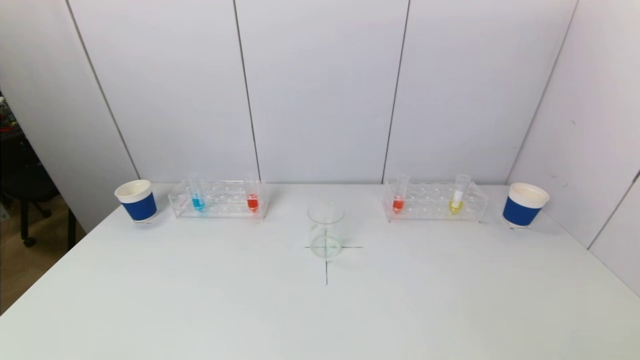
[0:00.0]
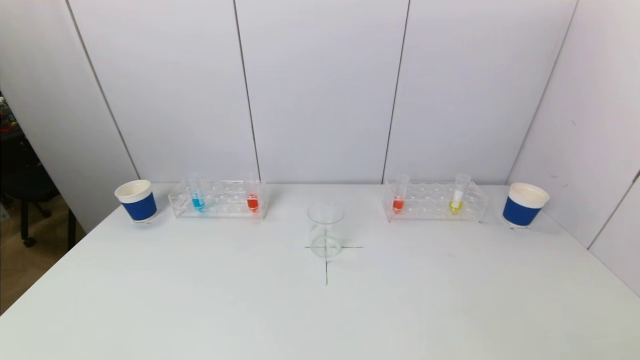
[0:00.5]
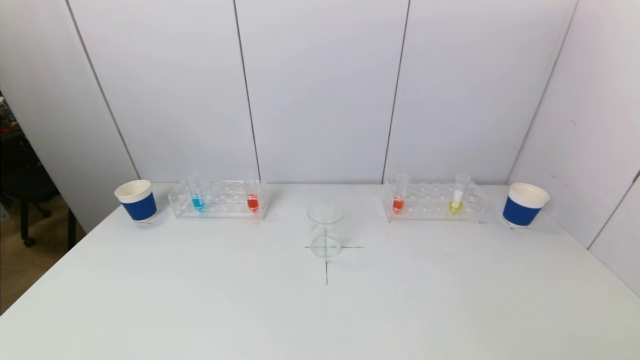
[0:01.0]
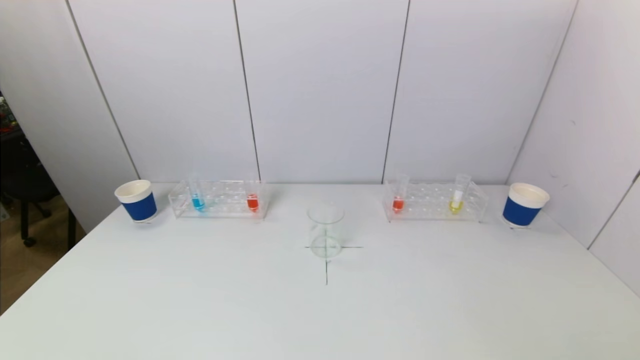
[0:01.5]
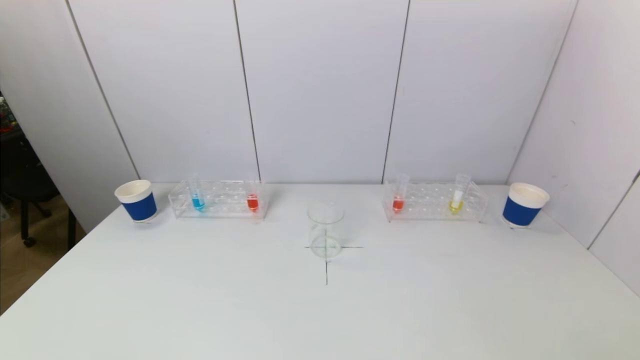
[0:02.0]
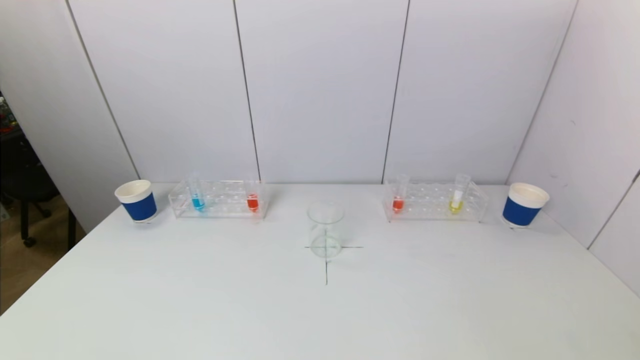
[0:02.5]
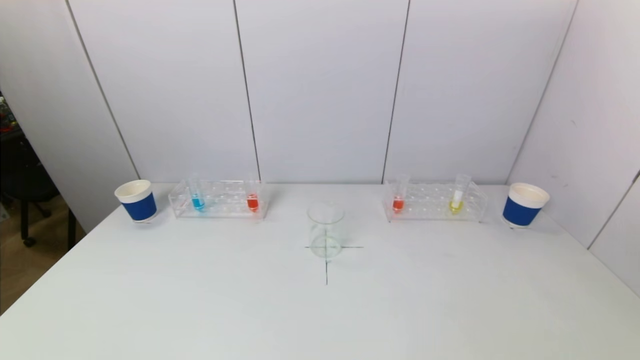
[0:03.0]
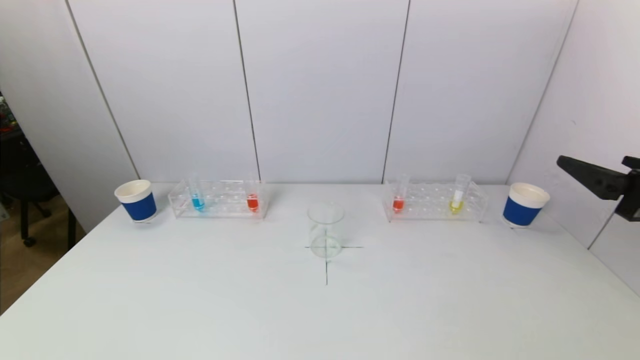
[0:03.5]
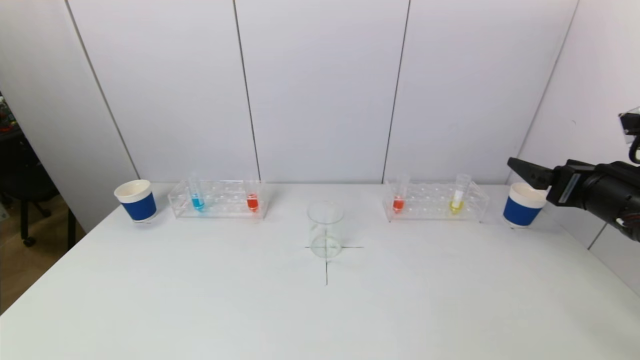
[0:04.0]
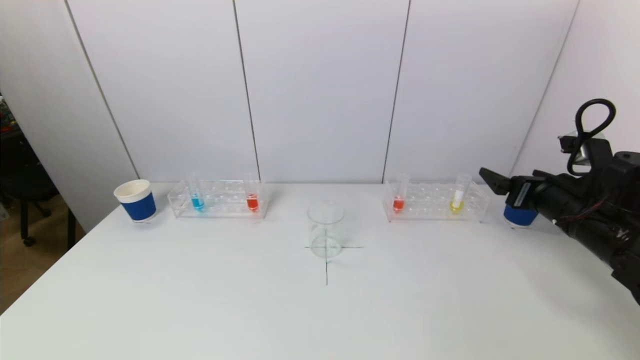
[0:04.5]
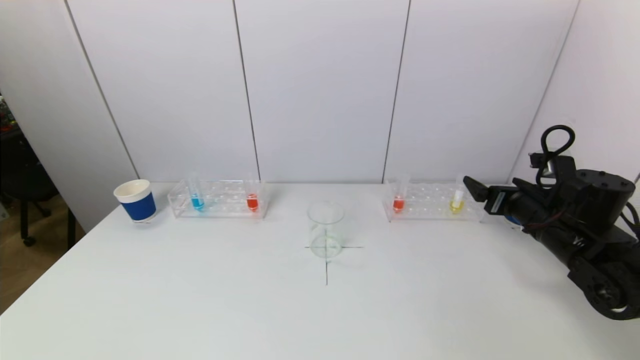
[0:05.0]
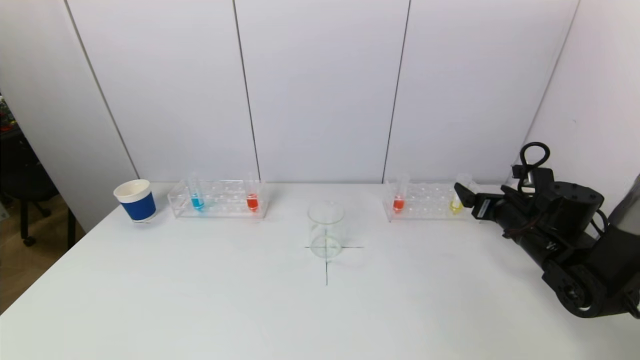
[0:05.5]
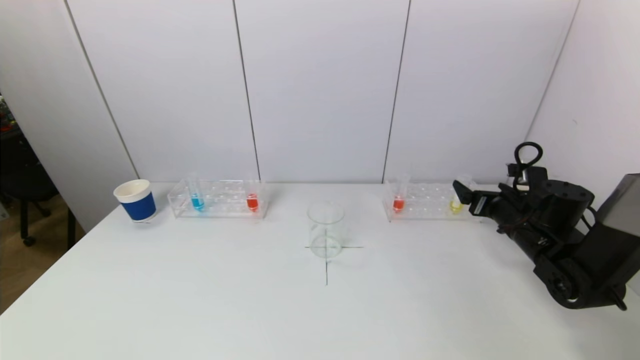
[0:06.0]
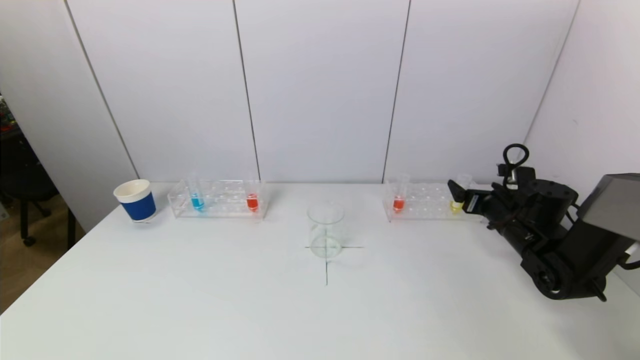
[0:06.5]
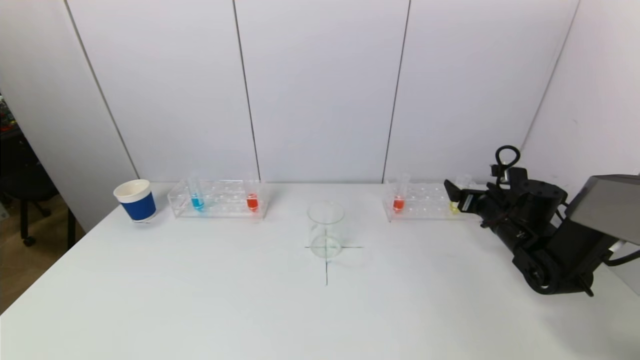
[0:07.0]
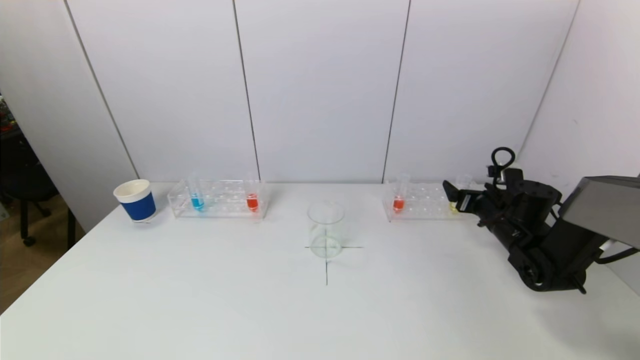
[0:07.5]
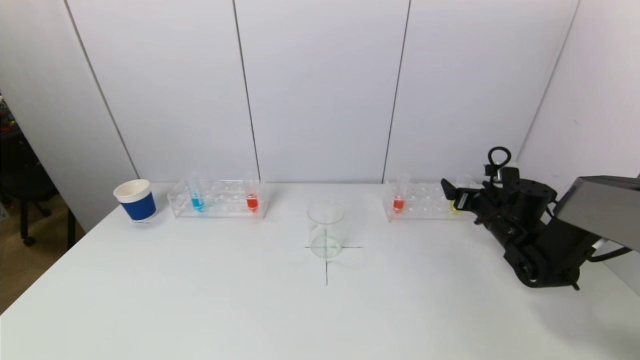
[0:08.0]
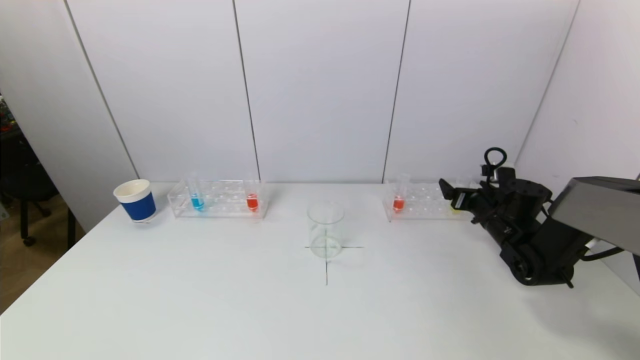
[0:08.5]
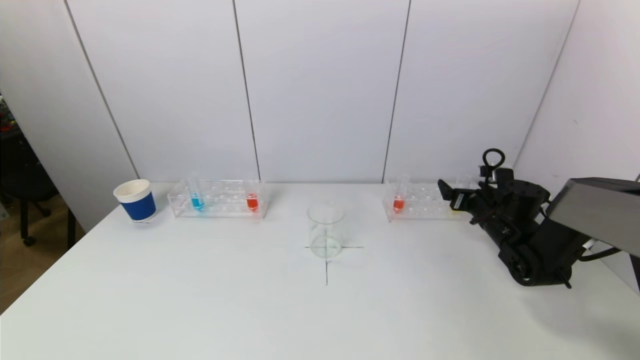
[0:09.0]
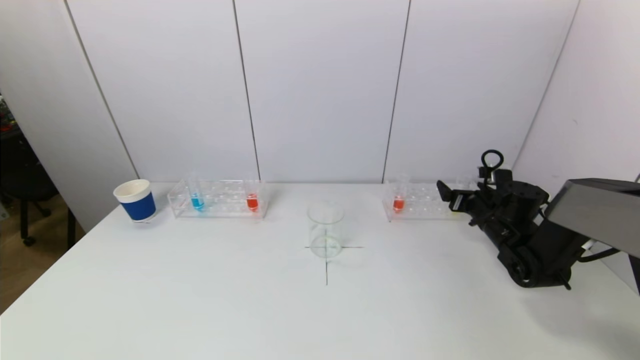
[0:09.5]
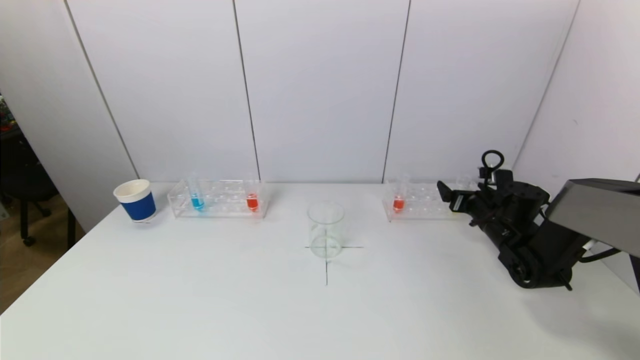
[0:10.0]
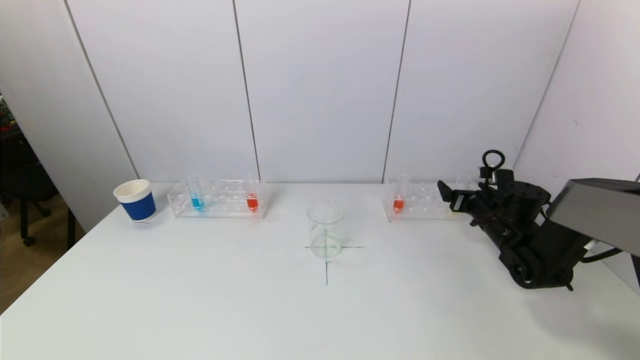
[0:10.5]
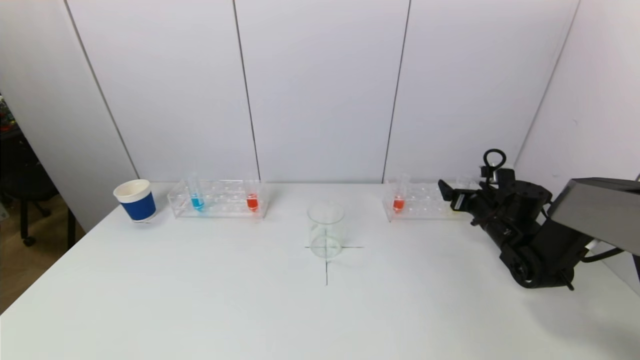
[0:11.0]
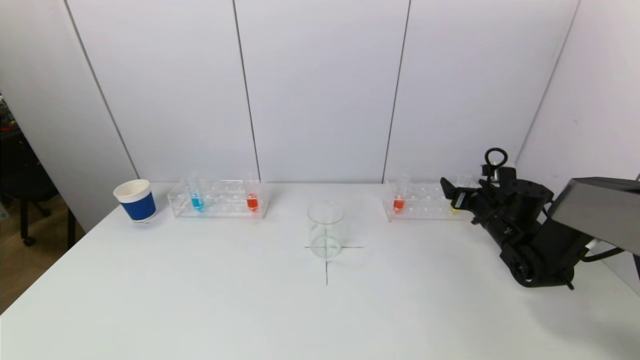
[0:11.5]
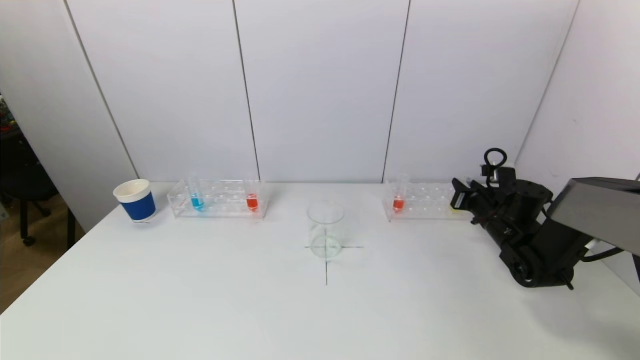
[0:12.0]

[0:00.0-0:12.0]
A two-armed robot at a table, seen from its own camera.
Task of the whole recording: pick up a test tube with pigment on left test tube rack and a test tube with pigment on right test tube rack by grippers and pour them into the beaker.
0:02.0 to 0:04.0: The right gripper is displaced forward by approximately 25 cm.
0:04.0 to 0:06.0: The right gripper goes about 15 cm downward and forward.
0:06.0 to 0:08.0: The right gripper moves forward, approximately 5 cm.
0:08.0 to 0:10.0: The two grippers keep their place.
0:10.0 to 0:12.0: The right gripper closes.

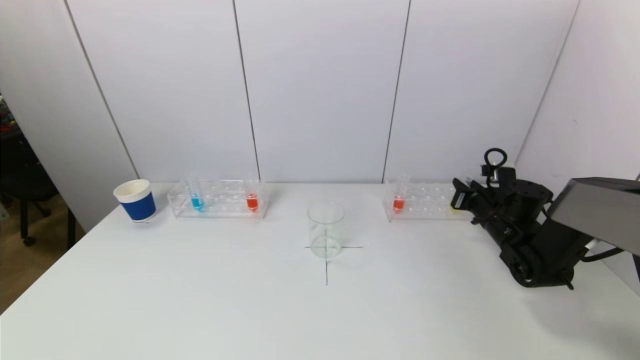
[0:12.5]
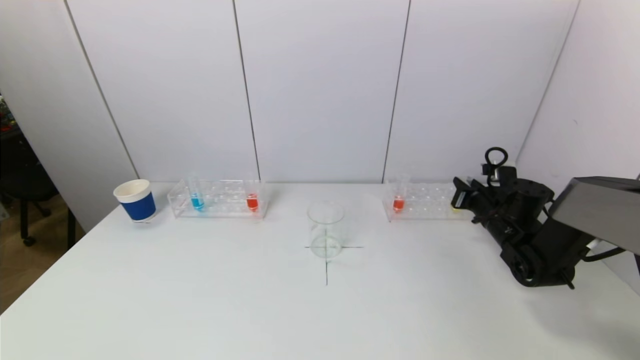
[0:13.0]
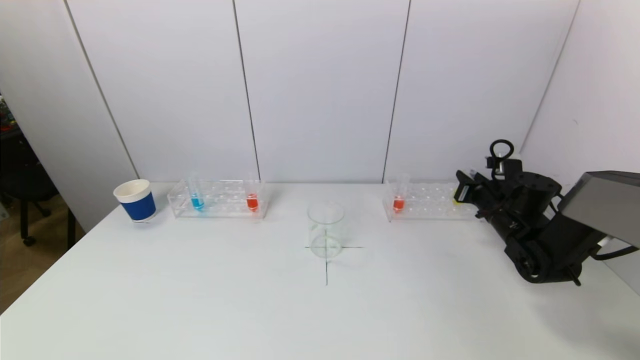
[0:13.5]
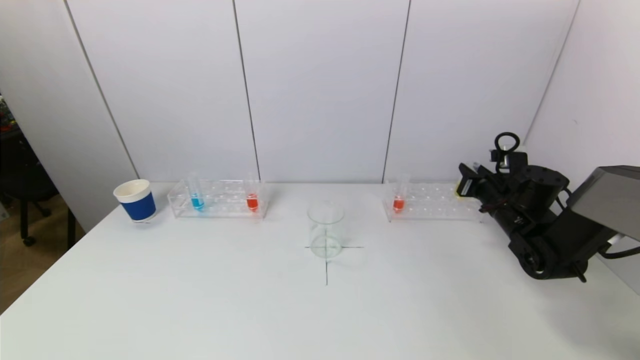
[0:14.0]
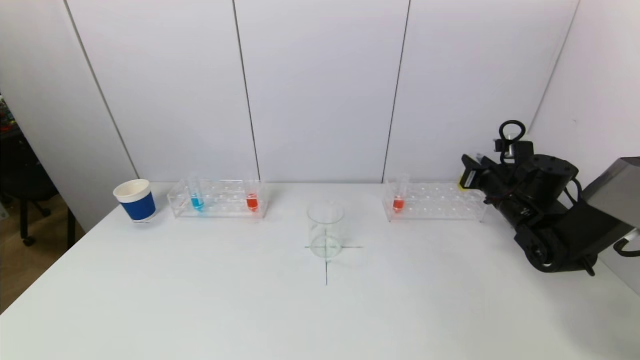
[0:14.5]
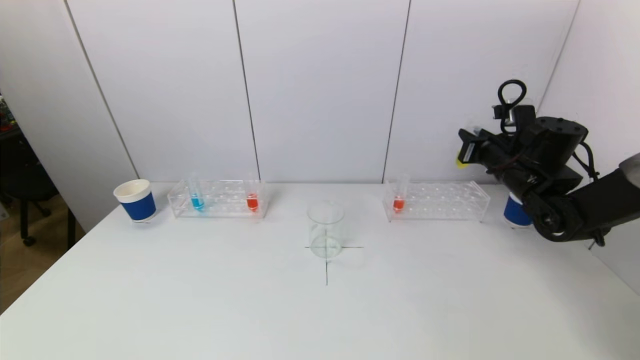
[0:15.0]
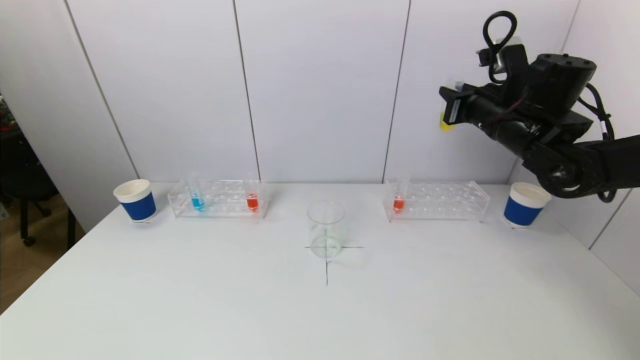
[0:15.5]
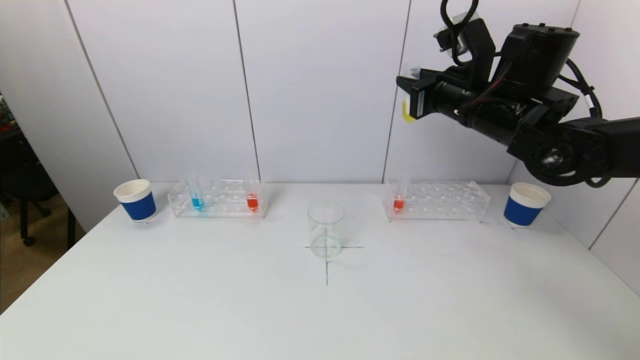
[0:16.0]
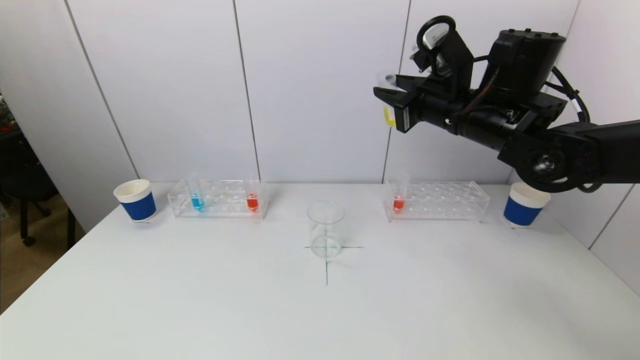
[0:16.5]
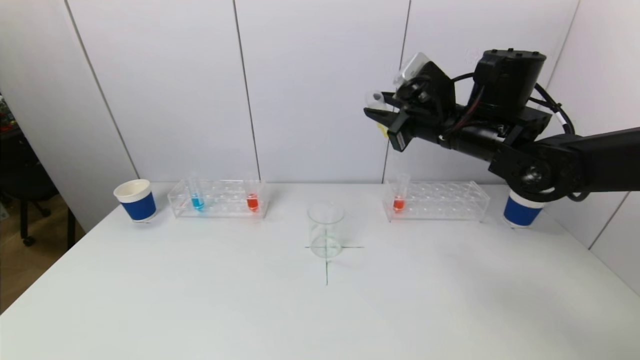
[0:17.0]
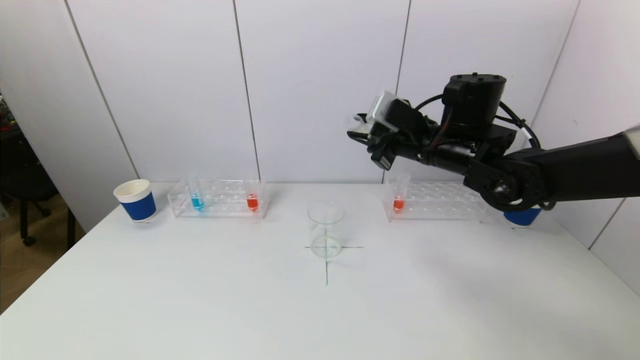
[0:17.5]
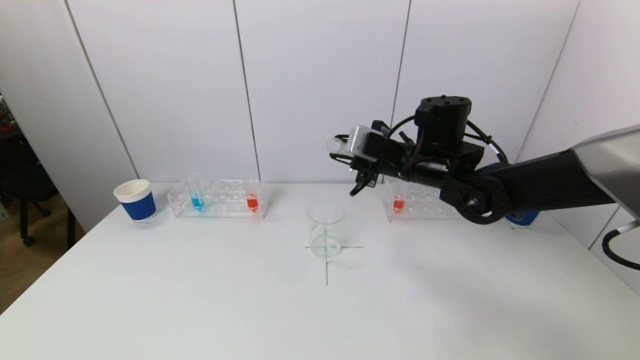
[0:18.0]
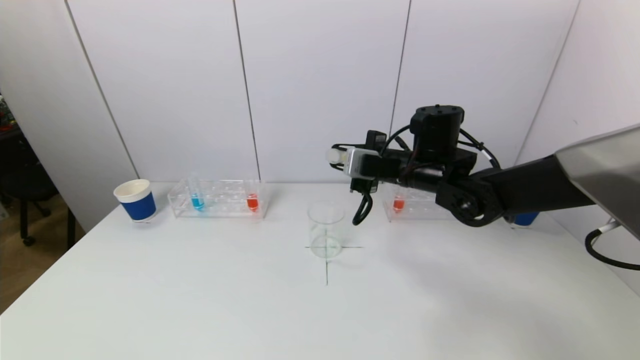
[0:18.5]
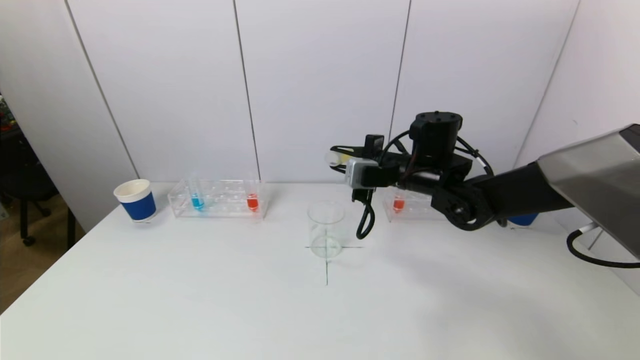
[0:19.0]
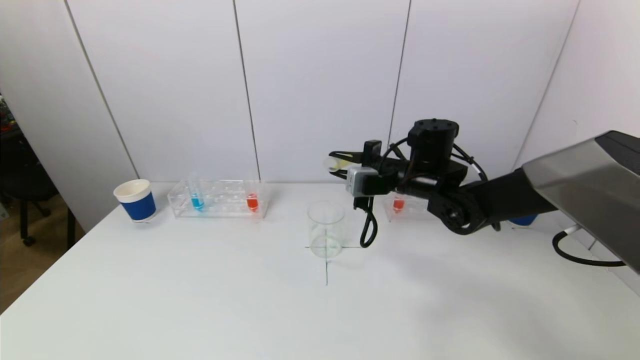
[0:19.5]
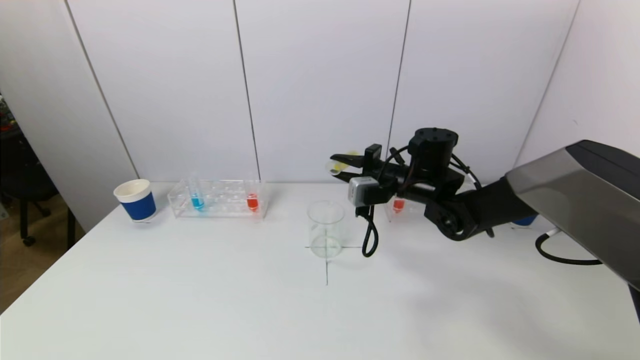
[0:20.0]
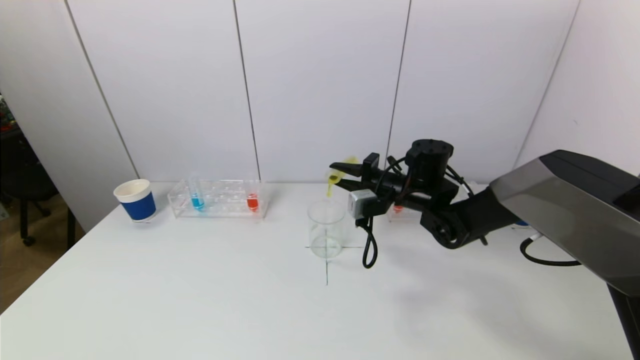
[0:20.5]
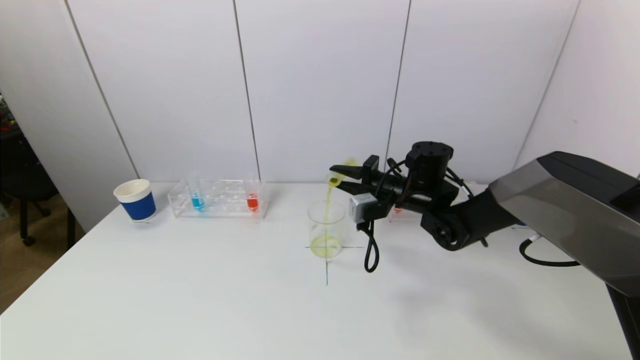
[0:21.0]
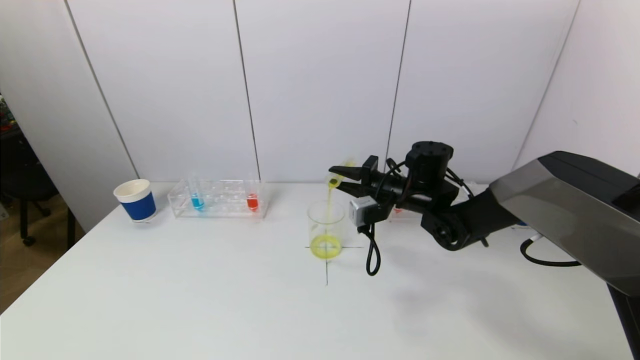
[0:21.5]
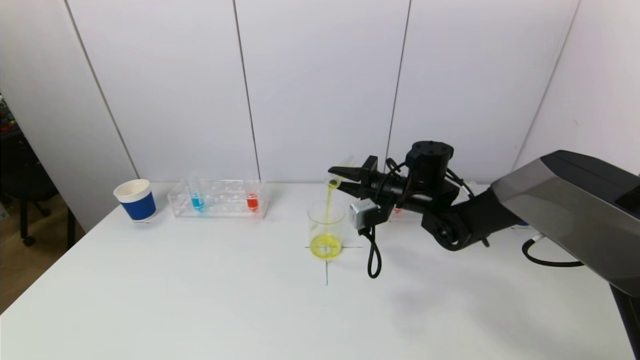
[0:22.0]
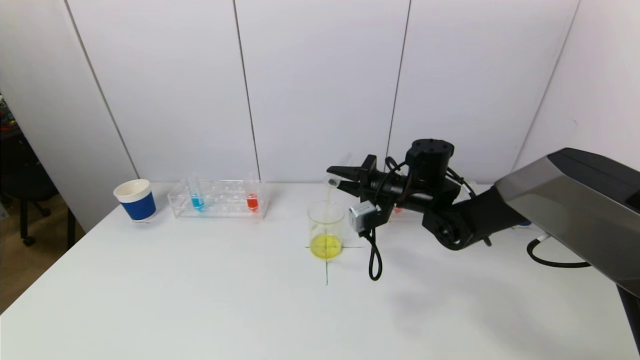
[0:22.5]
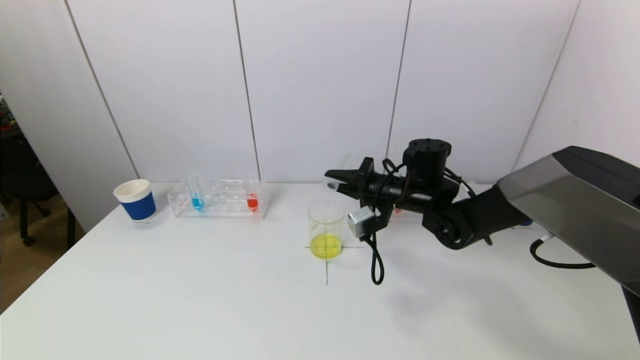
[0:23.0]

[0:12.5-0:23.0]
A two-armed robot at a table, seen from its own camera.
Task of the whole recording: pick up a test tube with pigment on left test tube rack and a test tube with pigment on right test tube rack by grippers and pour them into the beaker.
0:12.5 to 0:14.5: The right gripper travels upward by approximately 5 cm.
0:14.5 to 0:16.5: The right gripper travels upward and to the left by about 20 cm.
0:16.5 to 0:19.0: The right gripper heads downward, covering roughly 10 cm.
0:19.0 to 0:21.0: The right gripper shifts roughly 5 cm downward.
0:21.0 to 0:23.0: The grippers stay close to where they were, moving slightly.
